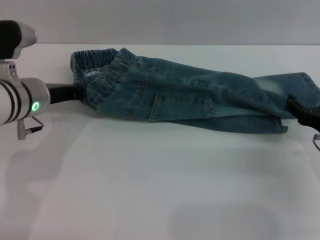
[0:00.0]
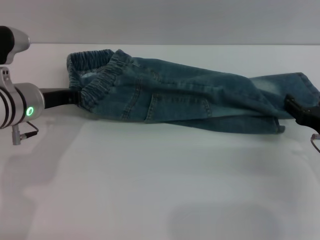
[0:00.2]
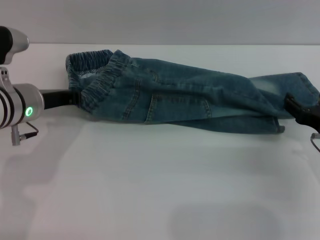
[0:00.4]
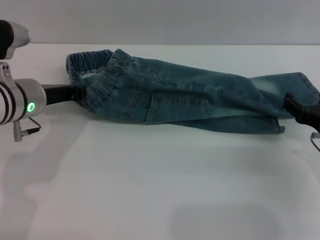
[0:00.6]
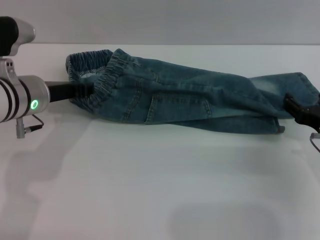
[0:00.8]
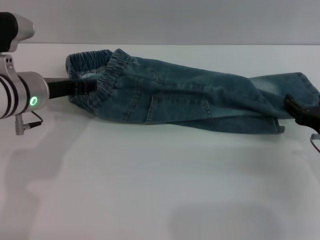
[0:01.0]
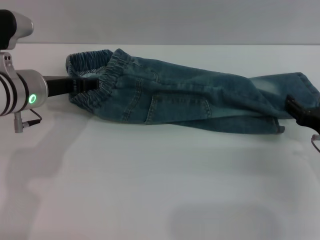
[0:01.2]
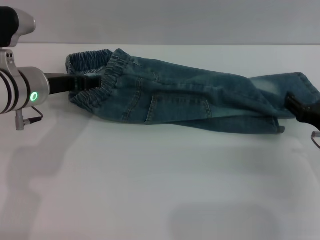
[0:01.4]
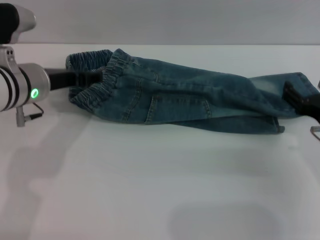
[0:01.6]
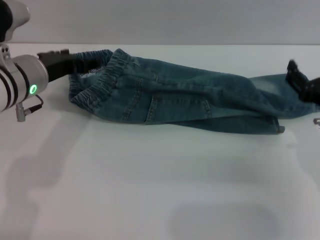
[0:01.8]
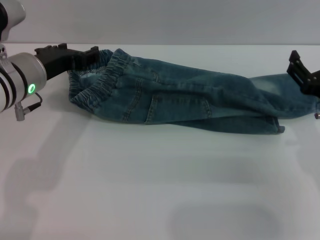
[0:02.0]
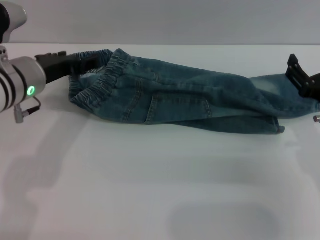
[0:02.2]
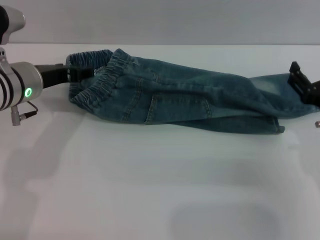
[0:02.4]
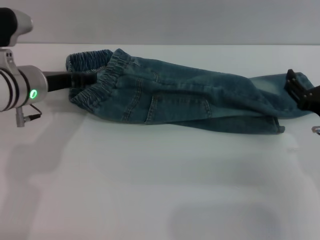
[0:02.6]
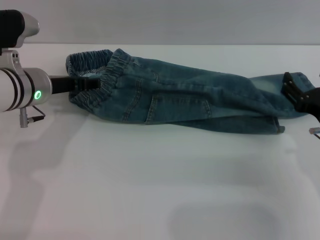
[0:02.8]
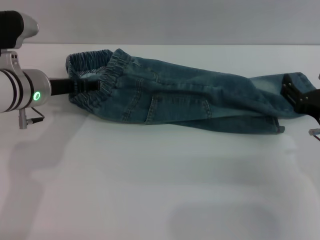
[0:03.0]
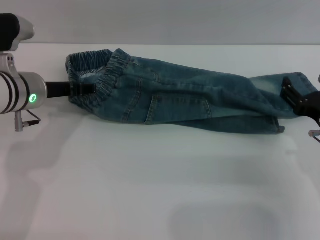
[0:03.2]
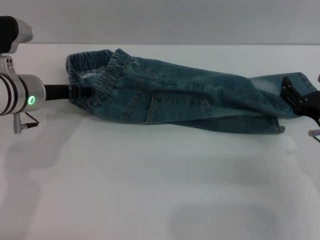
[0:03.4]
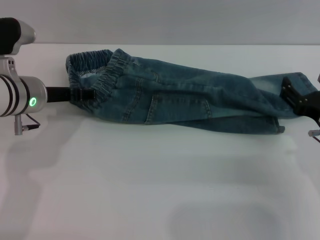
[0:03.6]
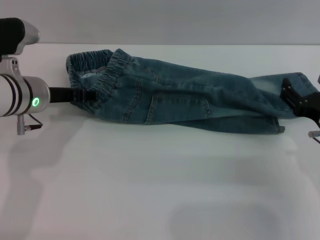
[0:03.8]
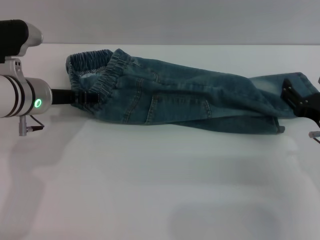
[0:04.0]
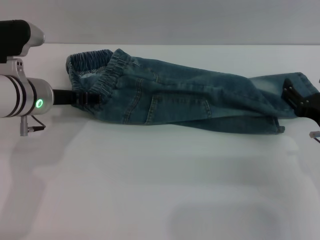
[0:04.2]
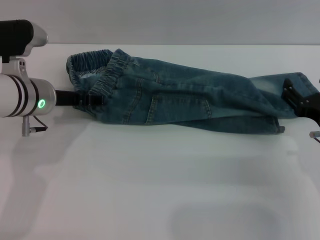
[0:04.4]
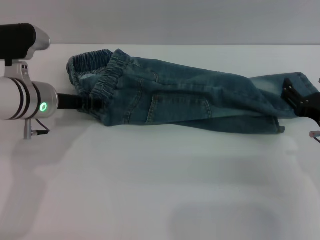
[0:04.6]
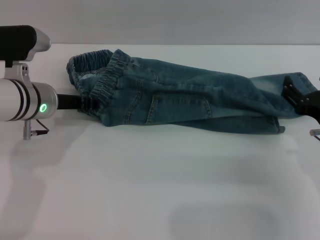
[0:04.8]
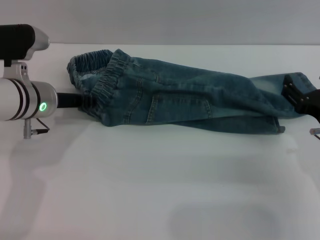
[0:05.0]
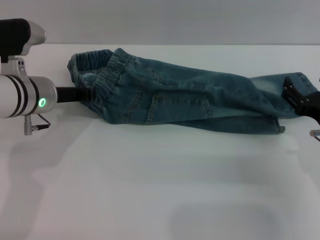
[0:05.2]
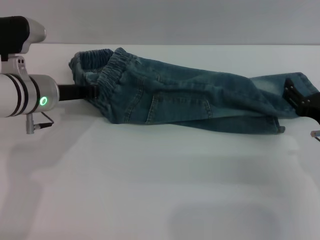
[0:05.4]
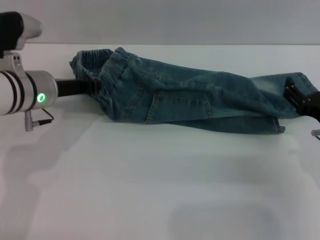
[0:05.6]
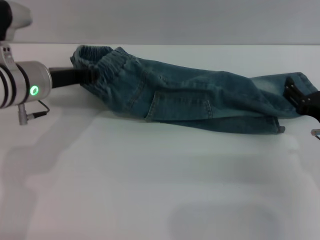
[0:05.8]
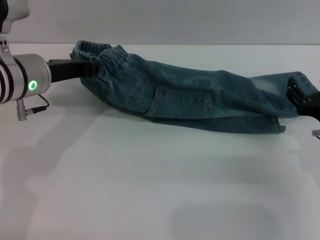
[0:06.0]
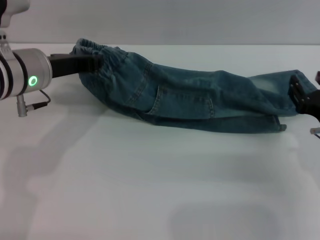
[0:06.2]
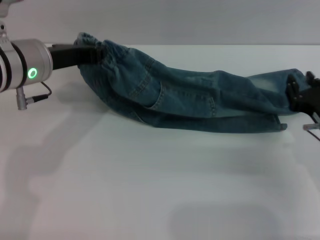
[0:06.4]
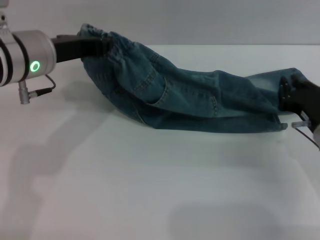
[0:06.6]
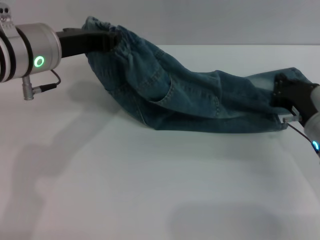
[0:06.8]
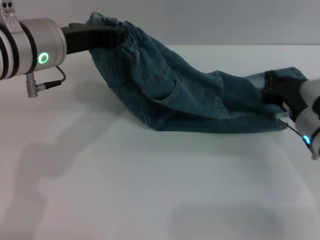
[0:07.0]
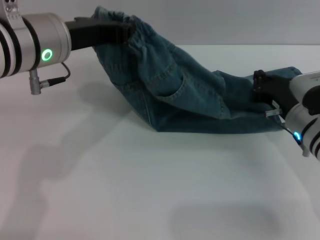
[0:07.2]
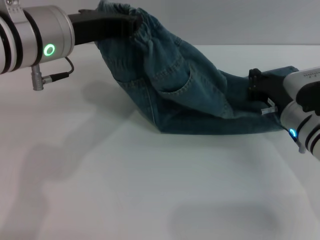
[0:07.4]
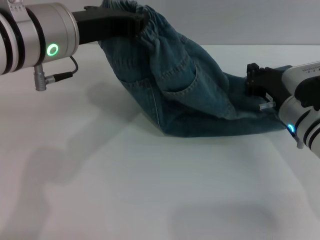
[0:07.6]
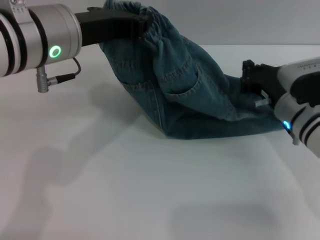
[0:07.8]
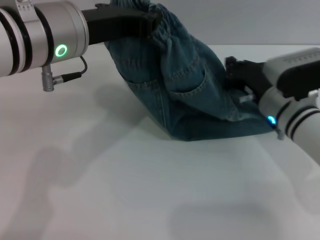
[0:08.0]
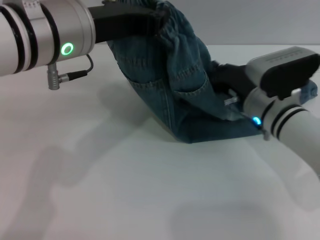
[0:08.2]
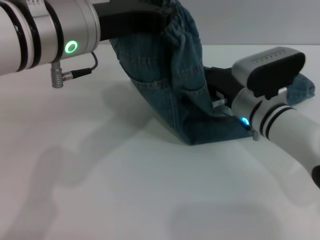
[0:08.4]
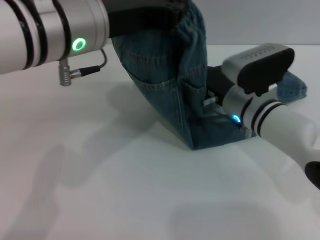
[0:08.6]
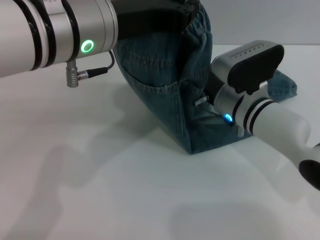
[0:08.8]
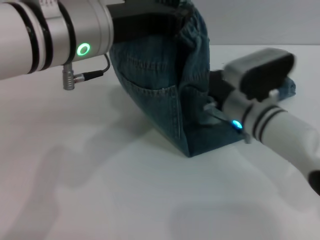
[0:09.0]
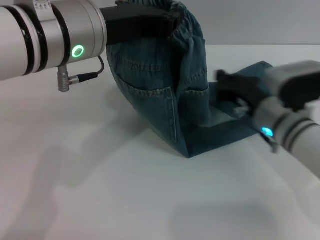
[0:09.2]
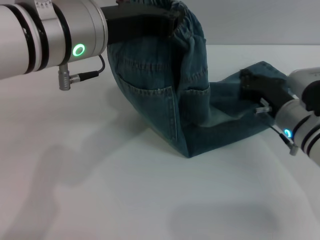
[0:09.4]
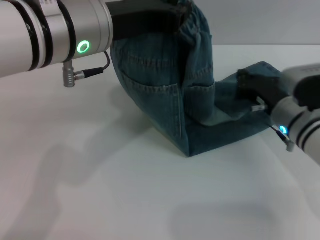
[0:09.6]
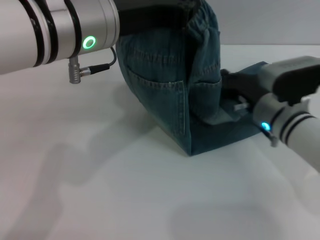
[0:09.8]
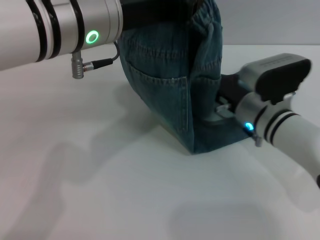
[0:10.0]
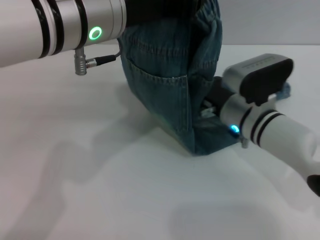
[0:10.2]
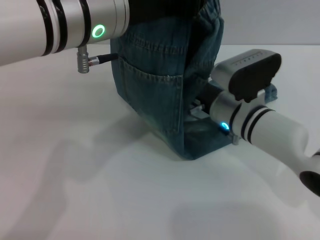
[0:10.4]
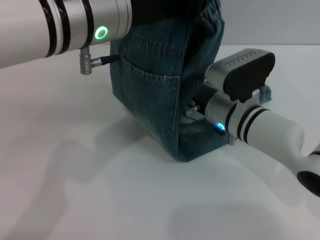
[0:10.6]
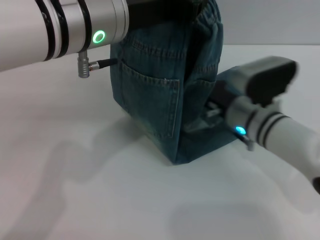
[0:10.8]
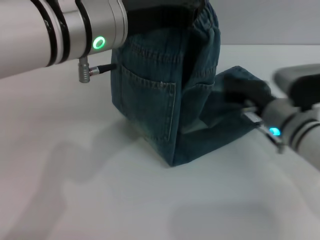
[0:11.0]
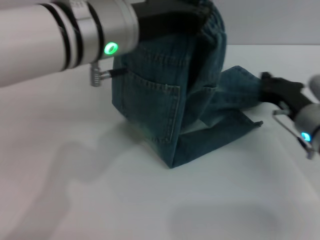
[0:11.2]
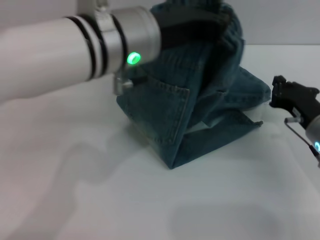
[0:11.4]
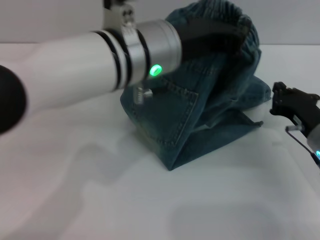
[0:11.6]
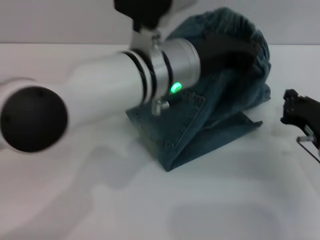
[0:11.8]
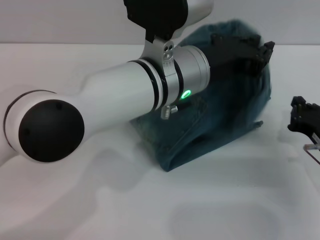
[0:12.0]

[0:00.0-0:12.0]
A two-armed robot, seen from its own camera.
0:00.0 to 0:01.6: The left gripper opens up.
0:01.6 to 0:04.4: There are only small adjustments of the grippers.
0:04.4 to 0:06.0: The left gripper closes.
0:06.0 to 0:07.6: The right gripper is displaced forward by about 10 cm, and closes; the left gripper moves upward and to the right, approximately 10 cm.
0:07.6 to 0:09.0: The right gripper travels to the left by roughly 10 cm.
0:09.0 to 0:10.4: The right gripper travels to the right and back again, about 5 cm each way.
0:10.4 to 0:12.0: The right gripper is displaced to the right and backward by approximately 20 cm, while the left gripper heads downward and to the right, covering about 10 cm.

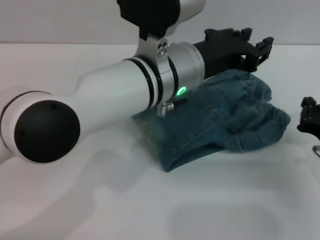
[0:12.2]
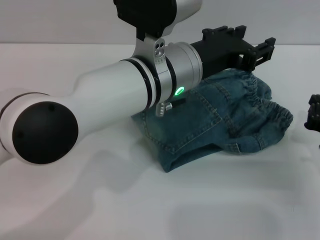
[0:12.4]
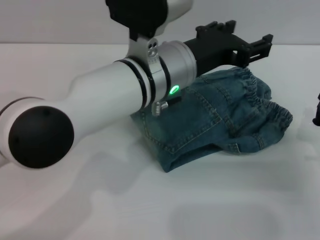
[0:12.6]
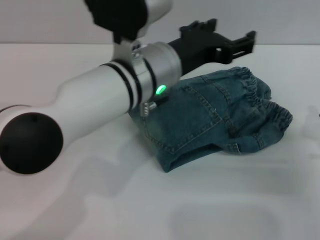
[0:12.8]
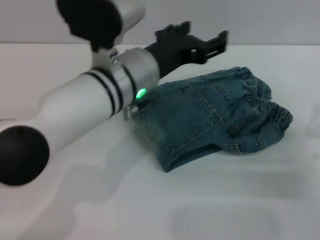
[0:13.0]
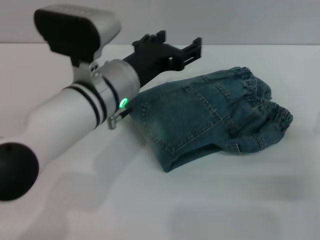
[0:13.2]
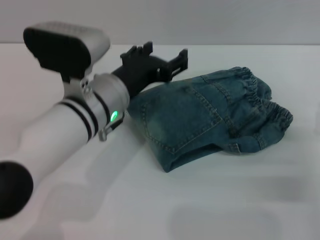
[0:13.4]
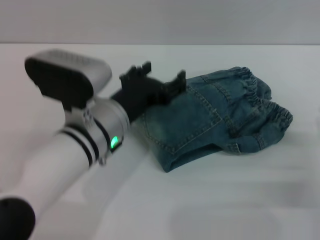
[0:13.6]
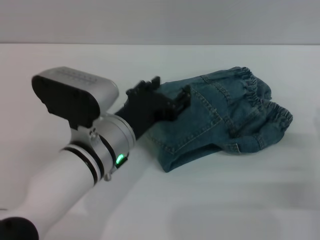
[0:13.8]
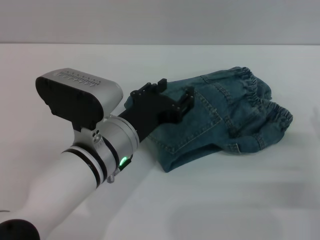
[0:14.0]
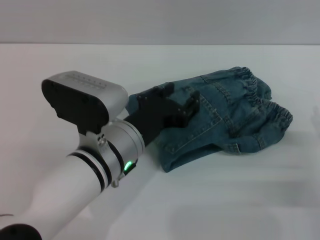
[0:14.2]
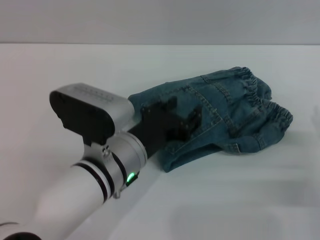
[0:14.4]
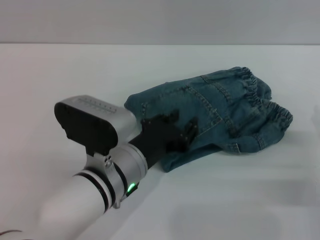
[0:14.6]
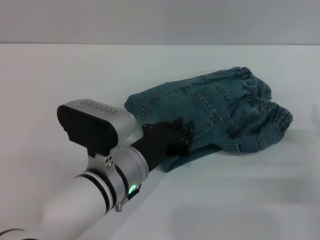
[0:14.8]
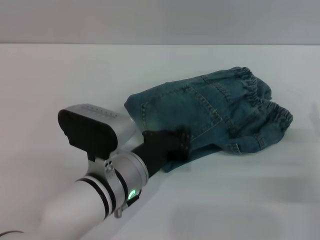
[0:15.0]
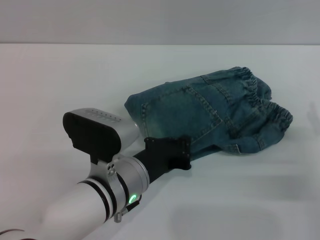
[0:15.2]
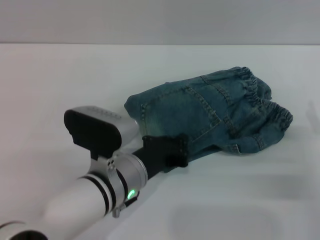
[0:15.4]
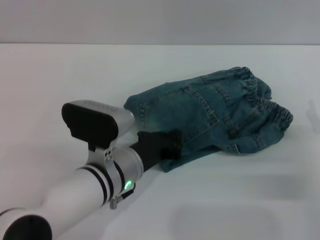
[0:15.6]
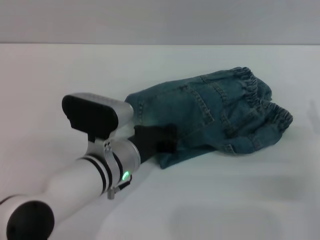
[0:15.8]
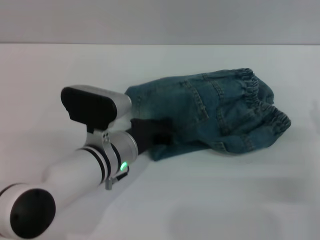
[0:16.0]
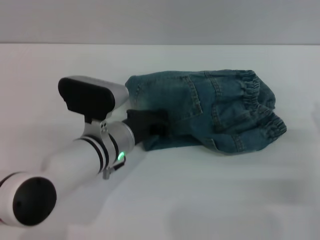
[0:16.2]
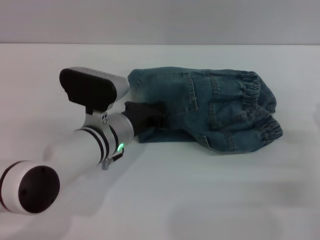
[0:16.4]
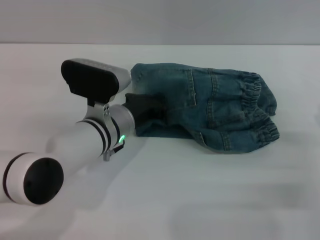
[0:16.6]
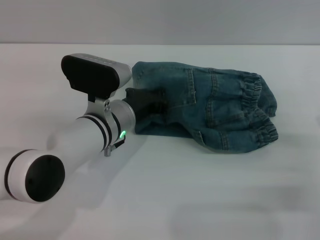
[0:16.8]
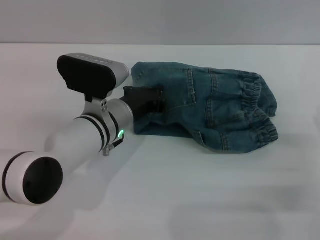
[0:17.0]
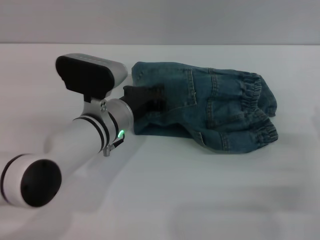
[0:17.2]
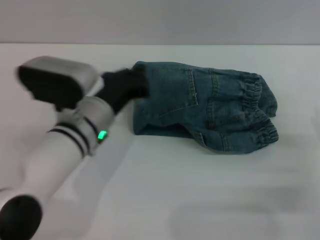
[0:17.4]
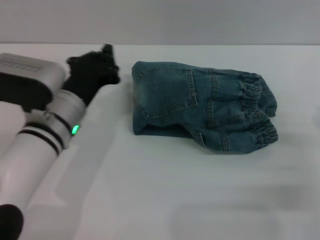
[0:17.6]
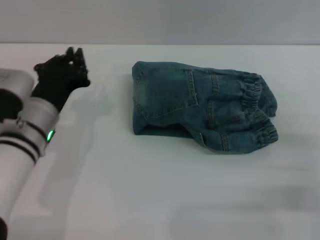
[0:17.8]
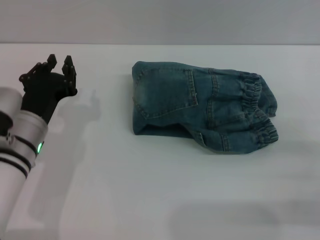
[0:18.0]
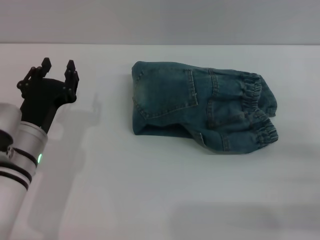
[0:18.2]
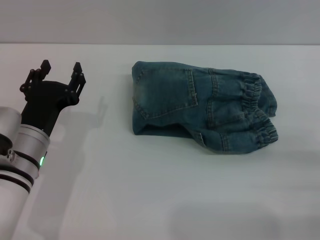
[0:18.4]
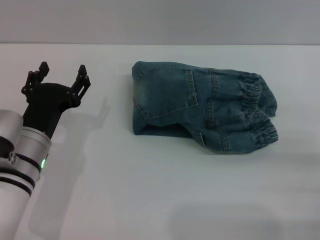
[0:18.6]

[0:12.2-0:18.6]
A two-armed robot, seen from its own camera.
Step, 0:13.2 to 0:17.6: Place the folded trousers onto the center area with the left grippers.
0:12.2 to 0:13.8: The right gripper opens, while the left gripper heads downward, to the left and backward, covering approximately 10 cm, and opens.
0:13.8 to 0:15.4: The left gripper closes up.
0:15.4 to 0:17.0: The left gripper is displaced forward by roughly 10 cm.
0:17.0 to 0:18.6: The right gripper moves roughly 5 cm. Meanwhile the left gripper travels to the left and backward by roughly 10 cm, and opens its fingers.

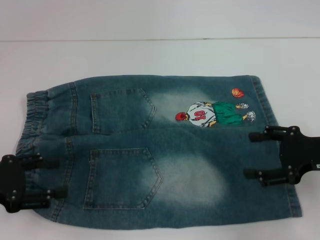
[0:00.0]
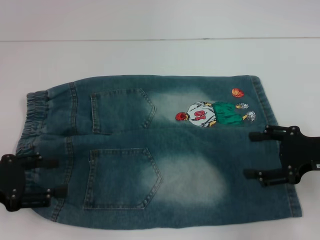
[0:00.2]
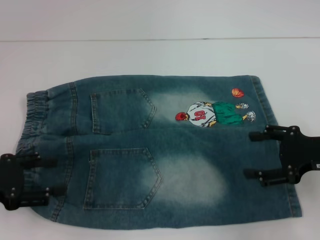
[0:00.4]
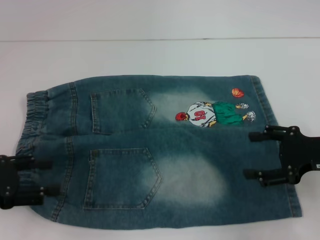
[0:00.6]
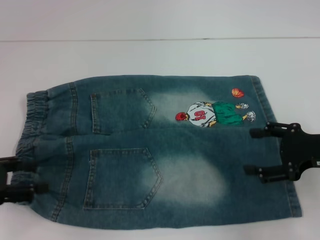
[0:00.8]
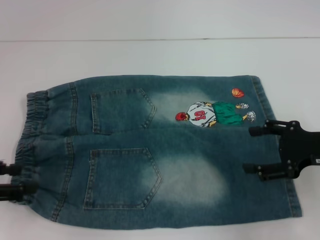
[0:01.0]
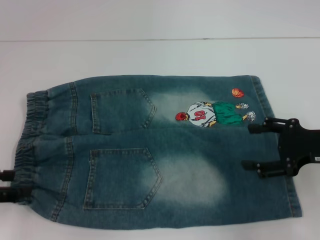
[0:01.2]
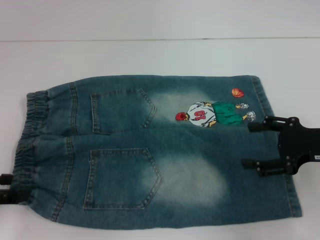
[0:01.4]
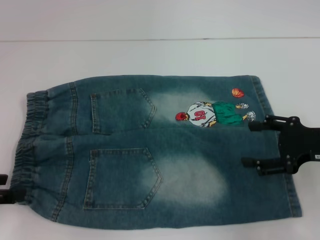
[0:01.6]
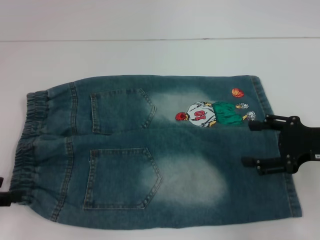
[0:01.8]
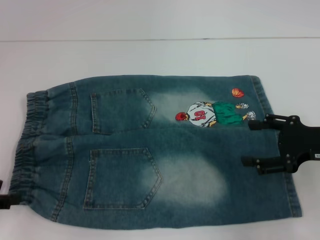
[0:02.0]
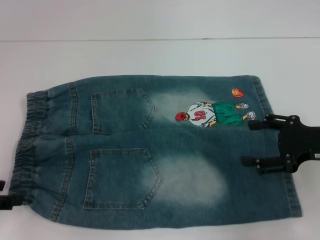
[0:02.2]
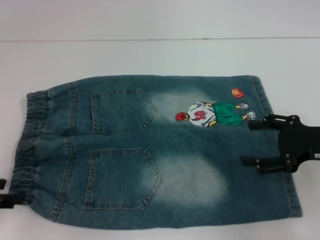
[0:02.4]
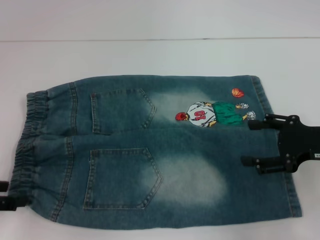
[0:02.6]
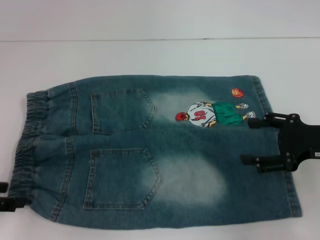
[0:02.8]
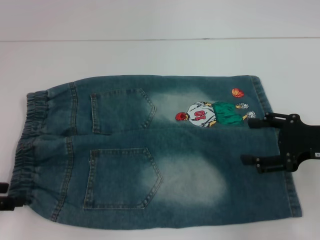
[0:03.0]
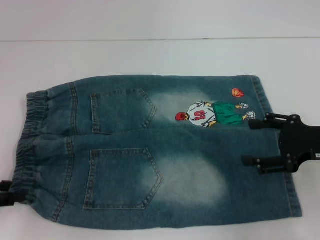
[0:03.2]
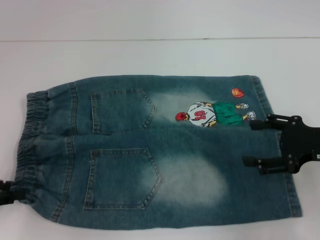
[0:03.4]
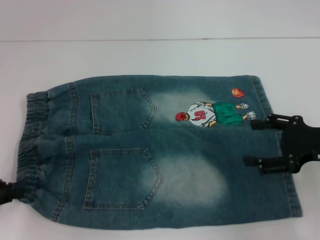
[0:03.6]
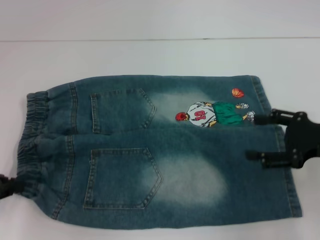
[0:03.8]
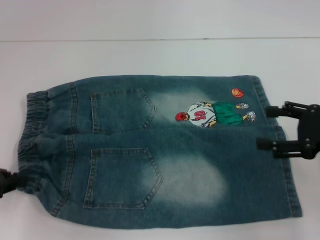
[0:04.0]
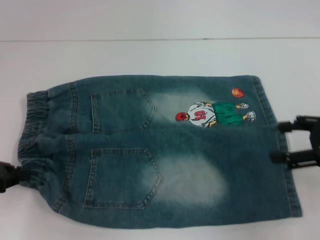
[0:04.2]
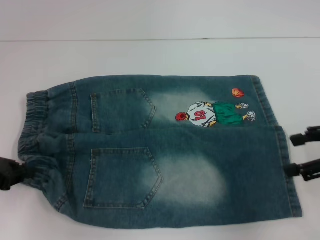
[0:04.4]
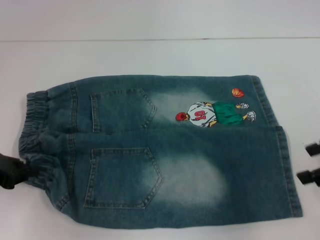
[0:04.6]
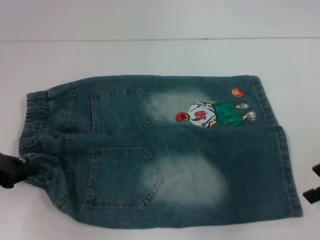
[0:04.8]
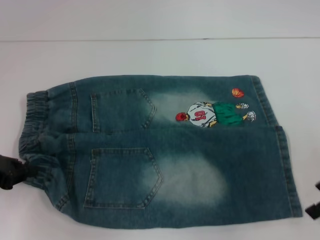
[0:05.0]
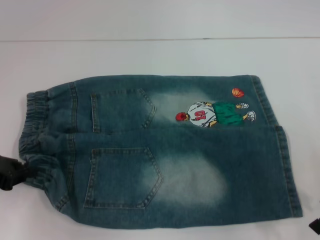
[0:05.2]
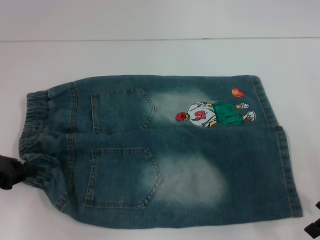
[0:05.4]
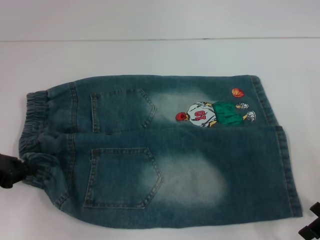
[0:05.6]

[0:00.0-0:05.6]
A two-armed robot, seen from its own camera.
Step, 0:00.0 to 0:03.2: Hold the lower left waistband with your left hand.
0:01.4 to 0:02.8: The grippers stay close to where they were, moving slightly.
0:02.8 to 0:04.2: The left gripper closes up.
